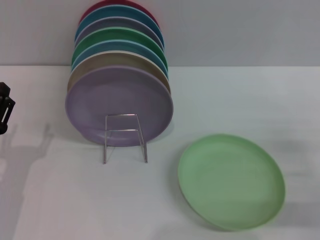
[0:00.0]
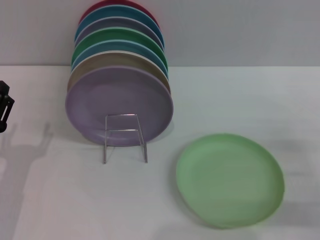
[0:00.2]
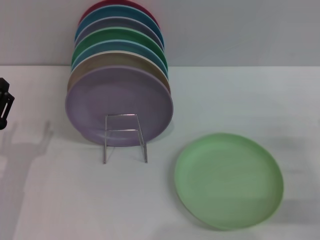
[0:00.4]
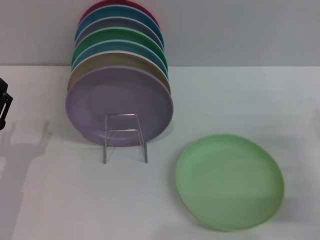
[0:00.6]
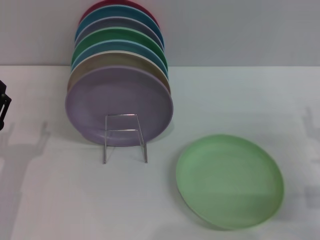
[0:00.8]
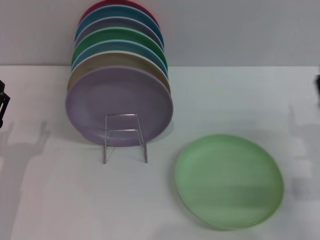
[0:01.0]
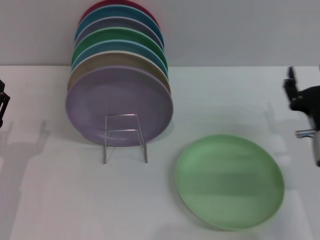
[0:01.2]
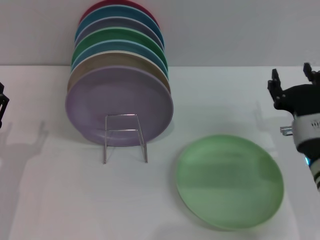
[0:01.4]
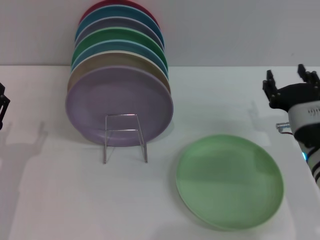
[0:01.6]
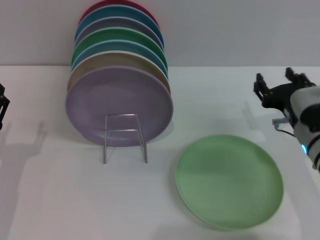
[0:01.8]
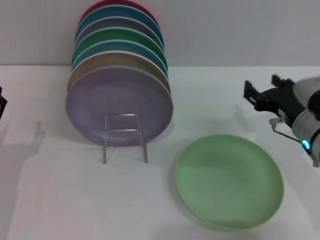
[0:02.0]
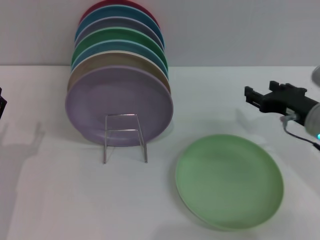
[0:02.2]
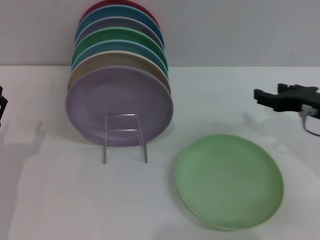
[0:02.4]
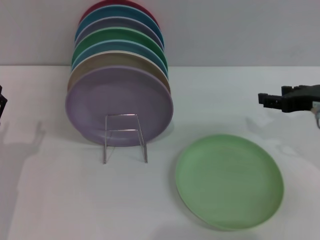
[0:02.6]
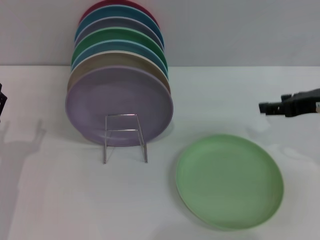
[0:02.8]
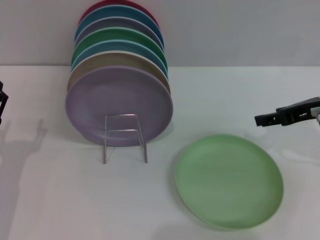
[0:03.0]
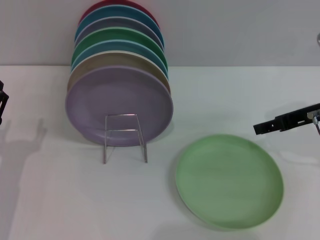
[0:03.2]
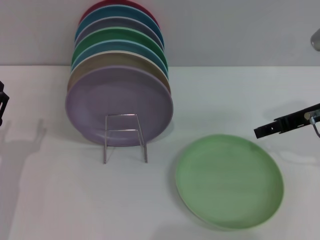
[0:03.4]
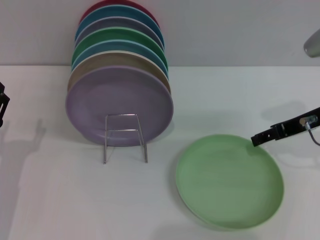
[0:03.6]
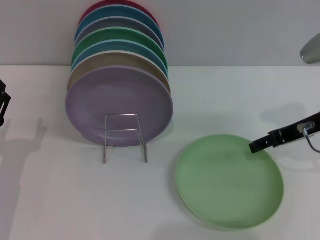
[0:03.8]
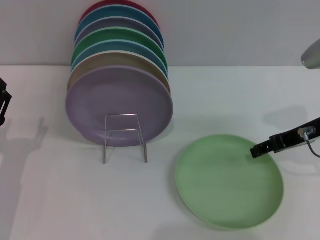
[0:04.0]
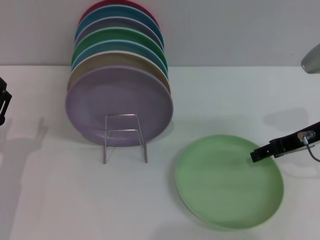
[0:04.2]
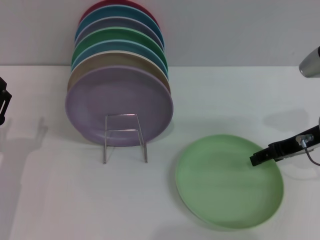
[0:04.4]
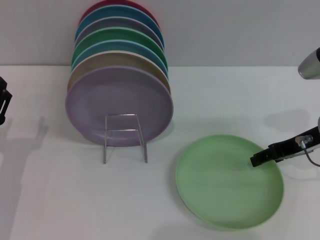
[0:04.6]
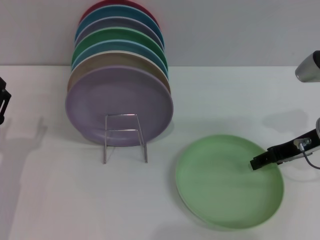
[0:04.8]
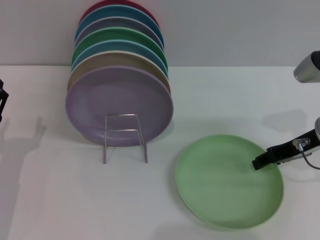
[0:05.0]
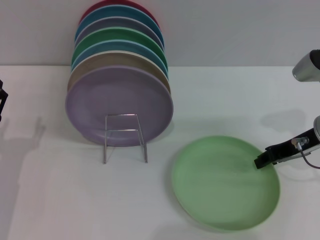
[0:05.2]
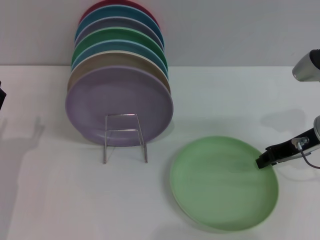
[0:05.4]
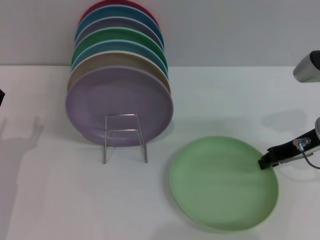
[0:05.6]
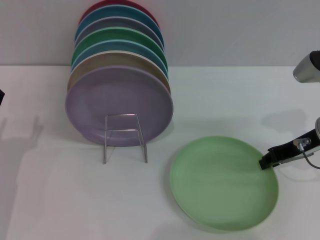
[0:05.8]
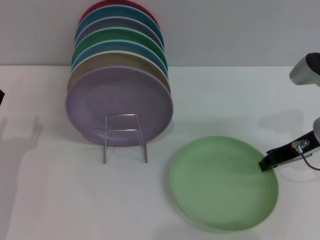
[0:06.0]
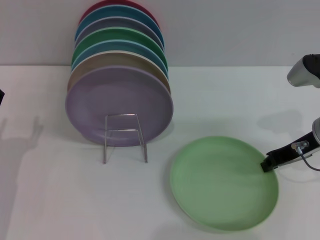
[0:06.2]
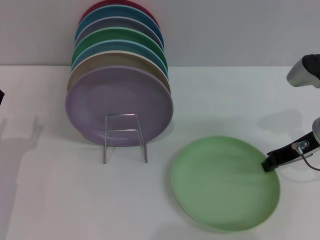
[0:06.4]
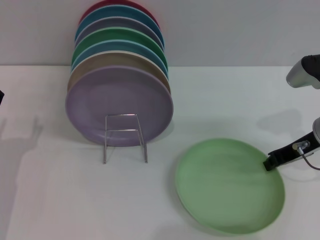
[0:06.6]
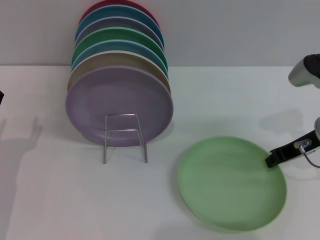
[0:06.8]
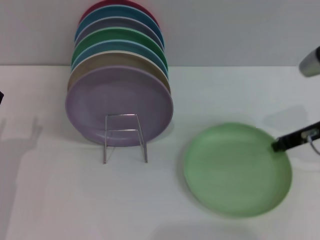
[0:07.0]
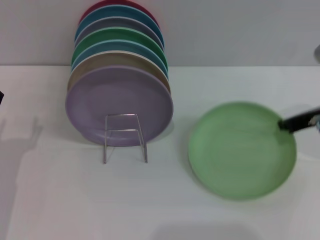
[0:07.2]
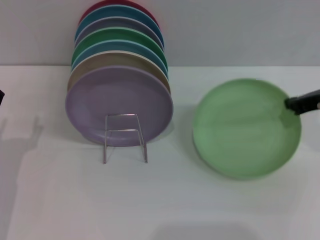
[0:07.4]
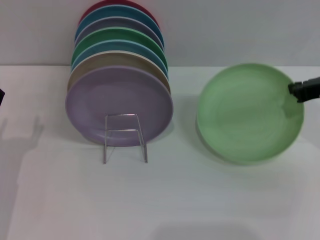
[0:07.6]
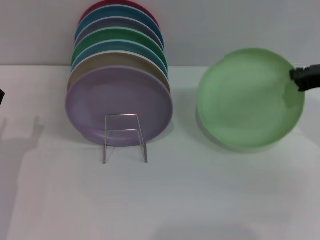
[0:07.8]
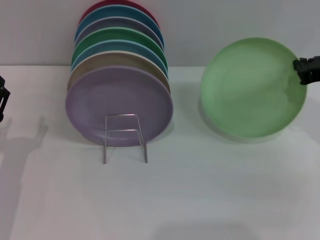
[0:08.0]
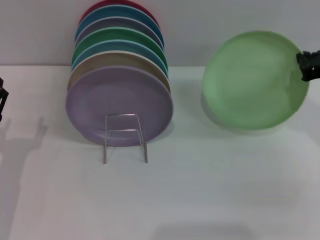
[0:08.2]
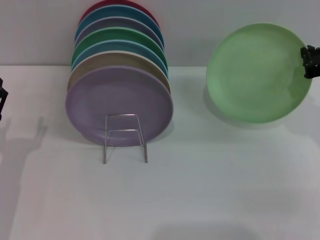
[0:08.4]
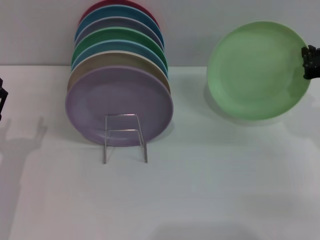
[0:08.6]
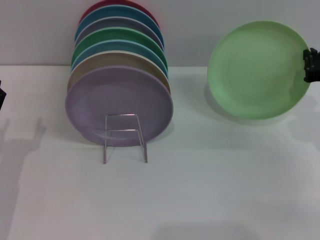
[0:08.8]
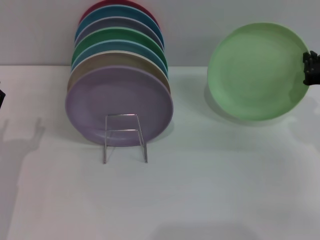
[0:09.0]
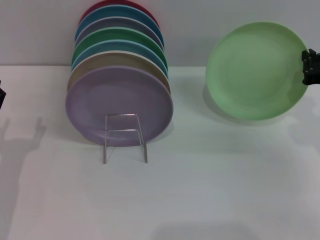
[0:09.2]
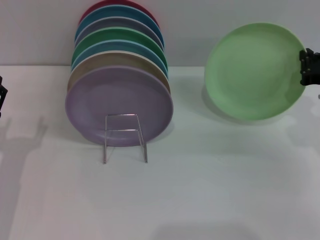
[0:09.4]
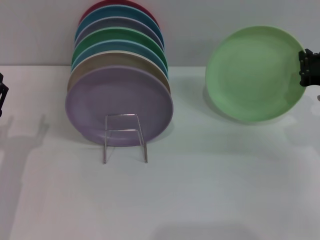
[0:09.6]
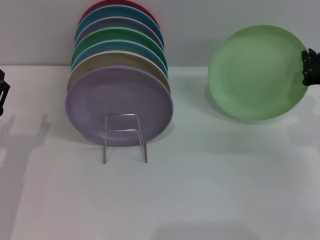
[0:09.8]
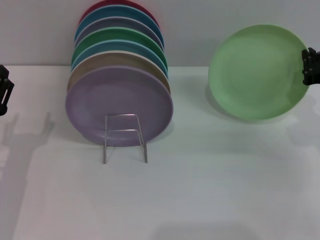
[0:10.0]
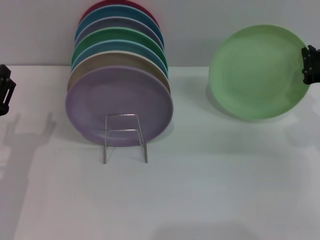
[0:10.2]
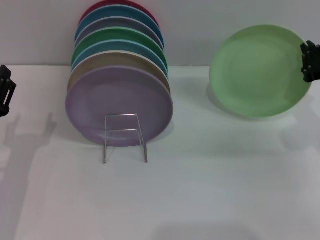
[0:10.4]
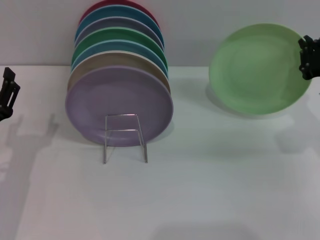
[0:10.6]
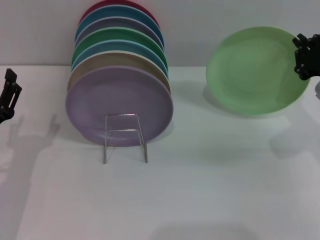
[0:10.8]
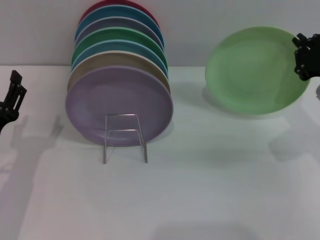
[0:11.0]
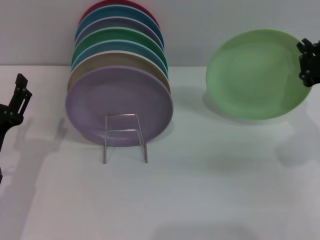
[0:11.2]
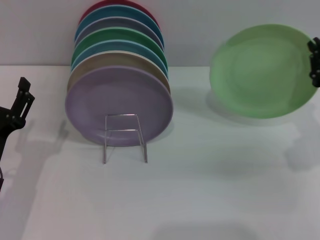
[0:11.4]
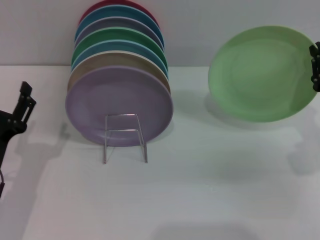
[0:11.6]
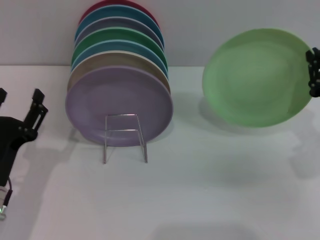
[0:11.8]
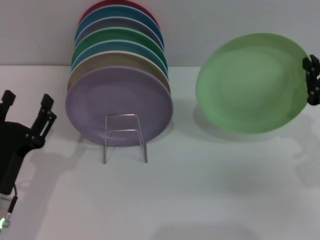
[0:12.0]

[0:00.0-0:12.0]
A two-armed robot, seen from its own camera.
Task of the whole recording: Grip the plate with one hand, pass it to the other, then set it on the shelf.
Step, 0:00.0 to 0:08.4: Pick up the plate with the right gripper.
0:00.0 to 0:01.6: The right gripper is displaced to the left and forward by about 15 cm.
0:01.6 to 0:03.0: The right gripper travels upward and to the right by roughly 10 cm.
0:03.0 to 0:04.4: There are only small adjustments of the grippers.
0:04.4 to 0:06.0: The right gripper closes its fingers.
0:06.0 to 0:07.6: The right gripper ends up about 5 cm from where it was.
0:07.6 to 0:09.0: The right gripper goes approximately 5 cm downward.
0:09.0 to 0:10.4: The grippers stay close to where they were, moving slightly.
0:10.4 to 0:12.0: The left gripper moves approximately 5 cm. The right gripper shifts some 5 cm backward.

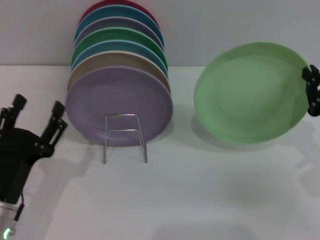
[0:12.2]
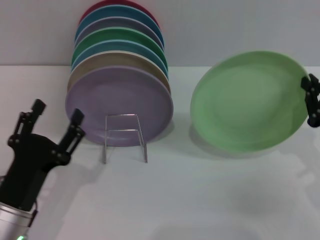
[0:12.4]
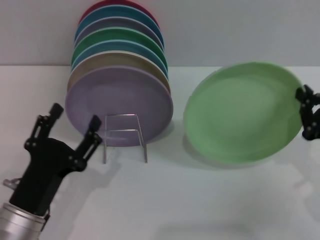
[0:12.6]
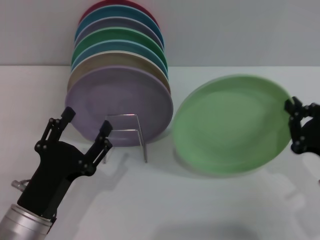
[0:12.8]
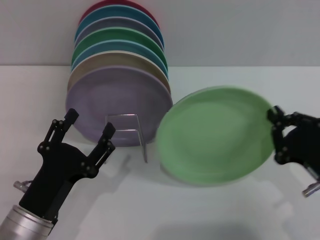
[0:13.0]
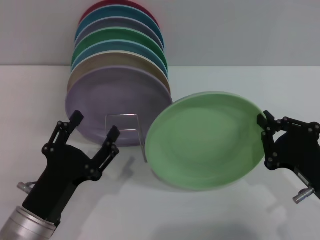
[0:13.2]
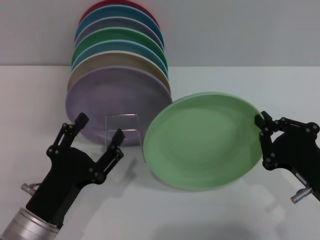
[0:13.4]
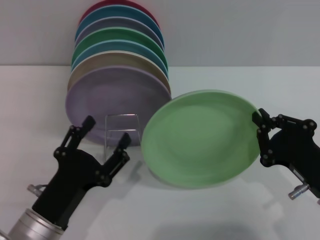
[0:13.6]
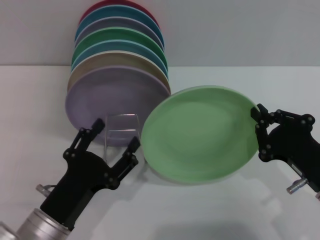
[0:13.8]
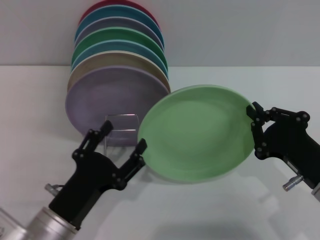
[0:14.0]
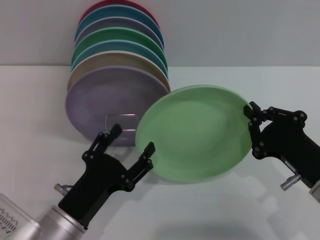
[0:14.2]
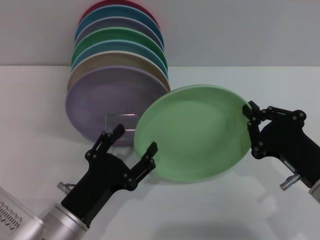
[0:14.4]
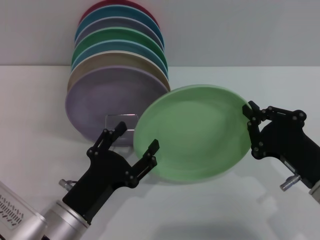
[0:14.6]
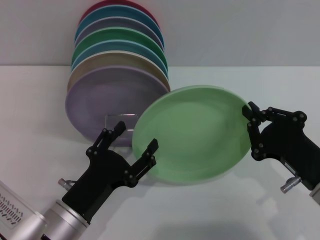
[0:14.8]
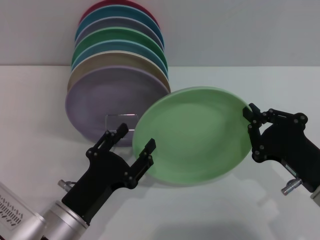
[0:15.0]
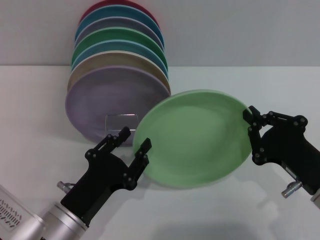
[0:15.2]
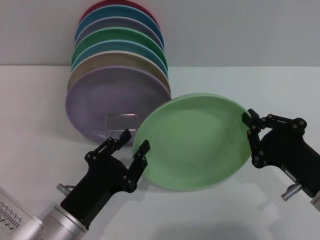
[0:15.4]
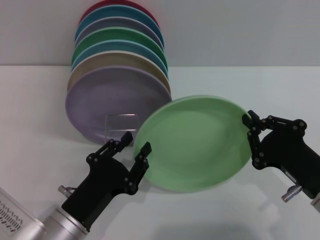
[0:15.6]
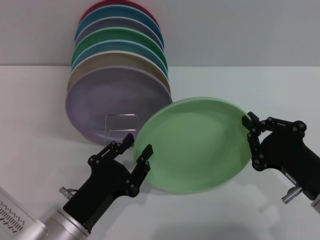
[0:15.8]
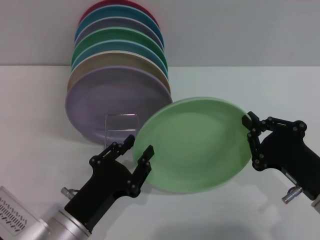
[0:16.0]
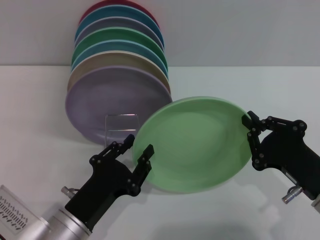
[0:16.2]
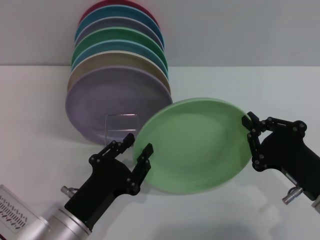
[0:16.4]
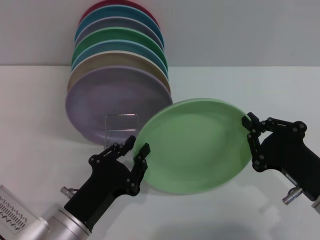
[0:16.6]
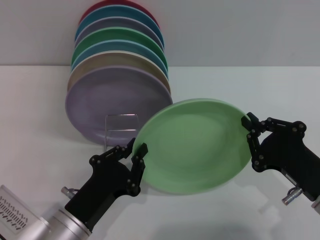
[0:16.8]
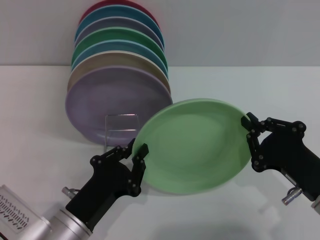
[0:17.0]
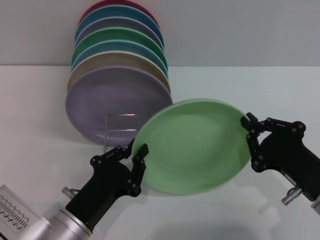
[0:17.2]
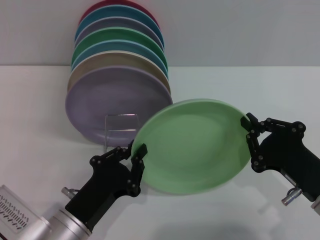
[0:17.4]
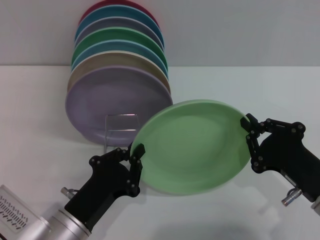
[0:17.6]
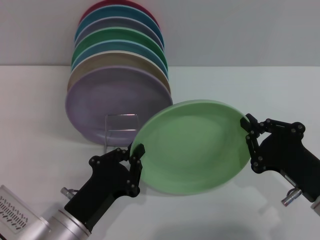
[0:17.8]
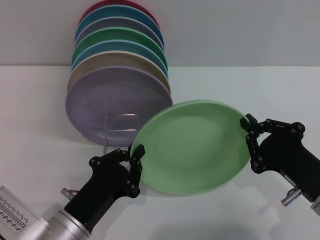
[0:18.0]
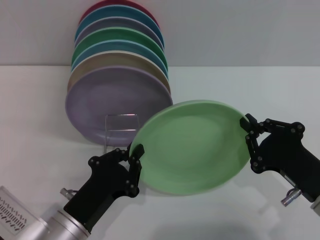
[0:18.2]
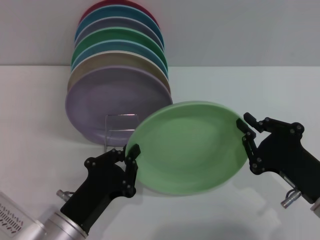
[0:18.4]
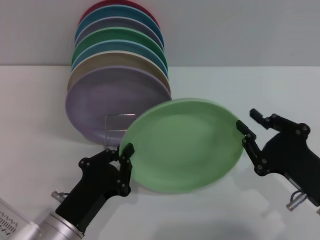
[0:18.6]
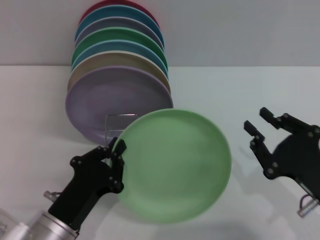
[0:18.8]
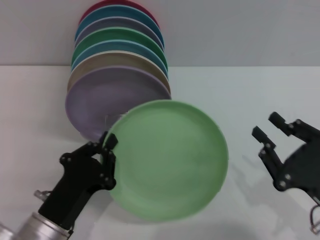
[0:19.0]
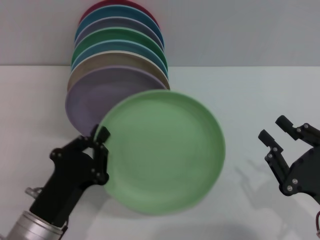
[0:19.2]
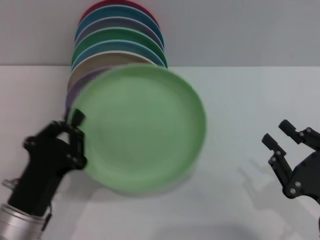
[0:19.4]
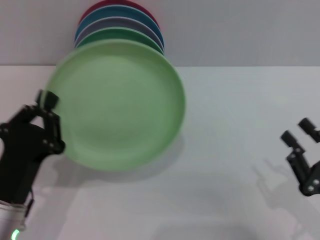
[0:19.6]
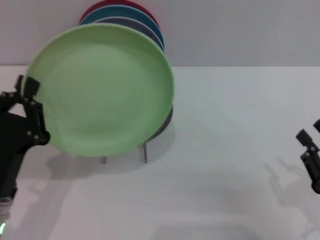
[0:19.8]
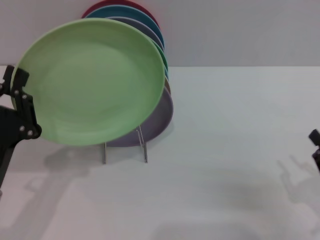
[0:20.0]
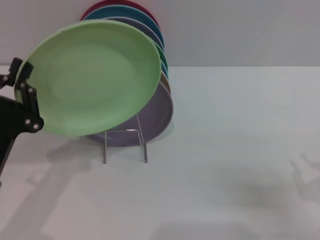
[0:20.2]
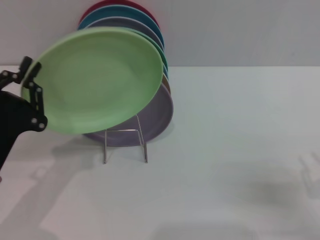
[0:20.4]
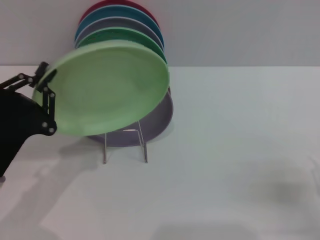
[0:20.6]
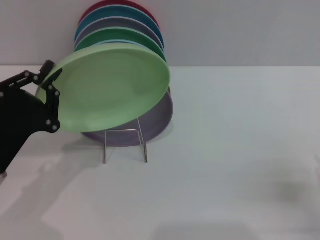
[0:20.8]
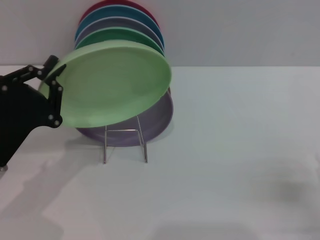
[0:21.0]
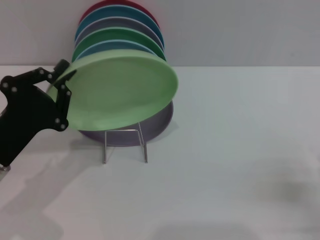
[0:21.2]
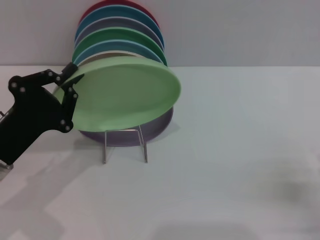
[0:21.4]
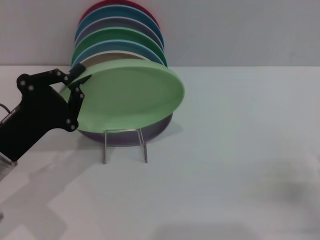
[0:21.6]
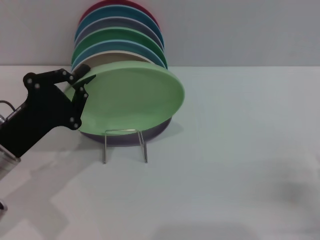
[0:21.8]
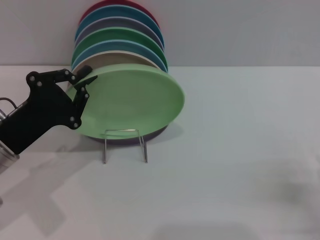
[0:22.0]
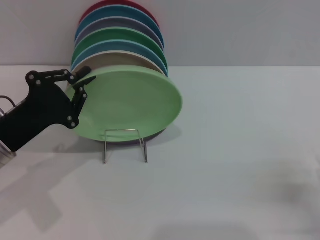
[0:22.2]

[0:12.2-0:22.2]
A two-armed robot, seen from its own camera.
Task of the whole recording: Grip the plate with one hand, pass it to the other, then set it on the shelf.
Step, 0:12.2 to 0:18.8: Pass the plate from the right gripper to the left gripper.
0:12.2 to 0:13.6: The right gripper goes roughly 10 cm to the left and backward, while the left gripper shifts by roughly 5 cm.
0:13.6 to 0:15.0: There are only small adjustments of the grippers.
0:15.0 to 0:16.4: The left gripper closes its fingers.
0:16.4 to 0:18.0: The left gripper closes up.
0:18.0 to 0:19.4: The right gripper shifts roughly 5 cm backward, and opens.
0:19.4 to 0:20.8: The left gripper travels forward and to the left by some 10 cm; the right gripper heads to the right, covering approximately 10 cm.
0:20.8 to 0:22.2: There are only small adjustments of the grippers.
